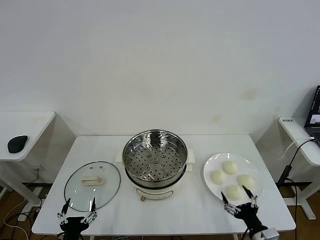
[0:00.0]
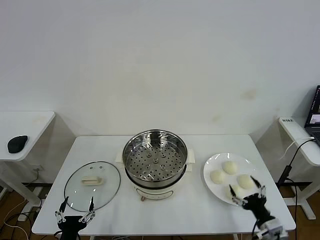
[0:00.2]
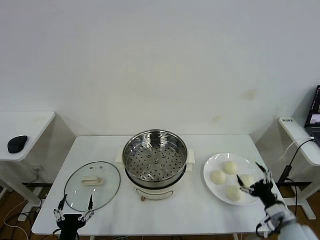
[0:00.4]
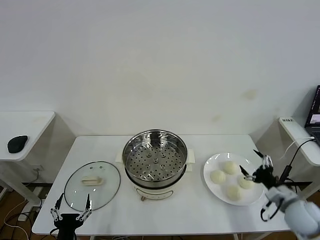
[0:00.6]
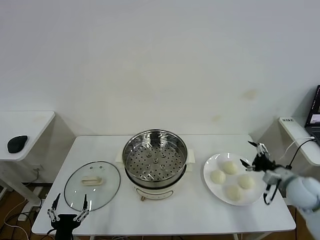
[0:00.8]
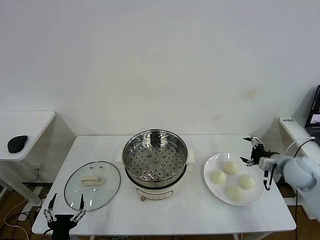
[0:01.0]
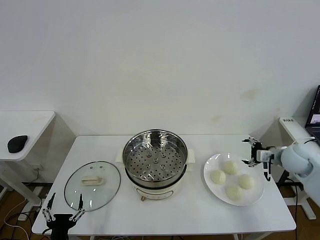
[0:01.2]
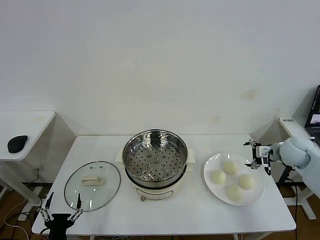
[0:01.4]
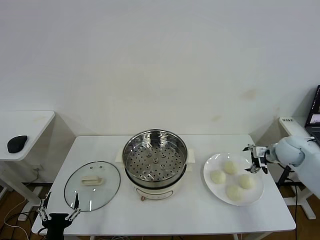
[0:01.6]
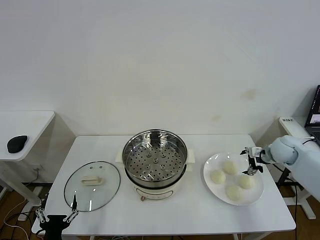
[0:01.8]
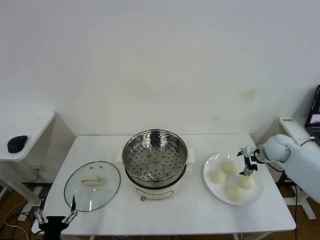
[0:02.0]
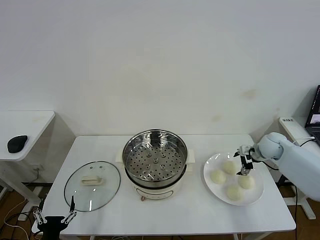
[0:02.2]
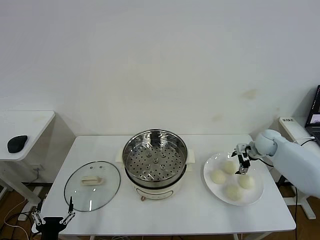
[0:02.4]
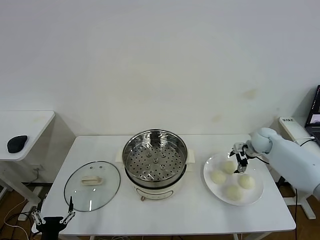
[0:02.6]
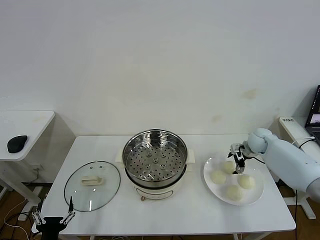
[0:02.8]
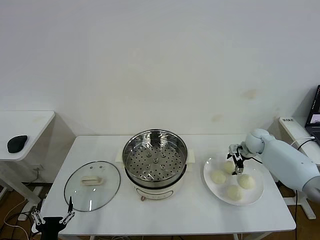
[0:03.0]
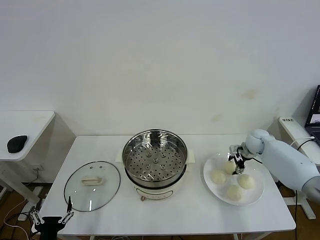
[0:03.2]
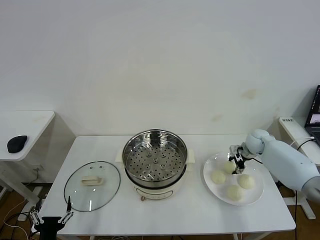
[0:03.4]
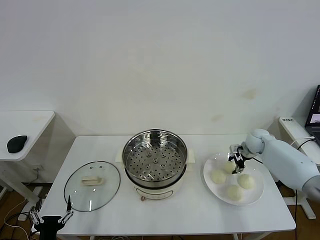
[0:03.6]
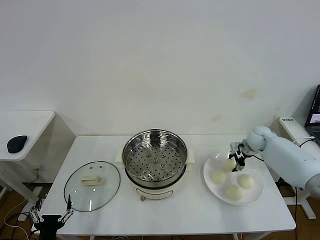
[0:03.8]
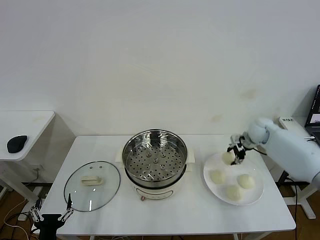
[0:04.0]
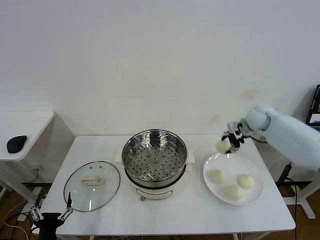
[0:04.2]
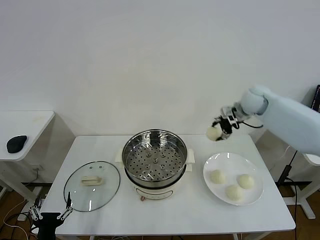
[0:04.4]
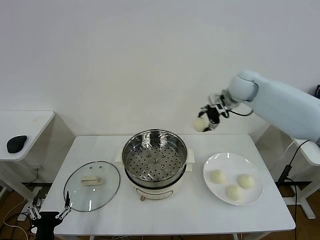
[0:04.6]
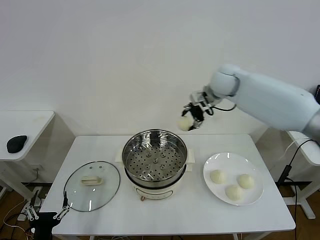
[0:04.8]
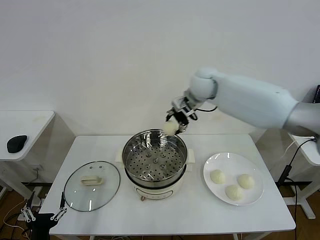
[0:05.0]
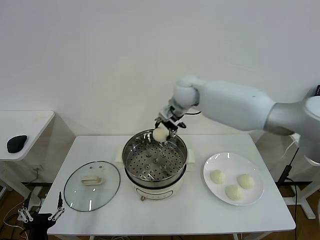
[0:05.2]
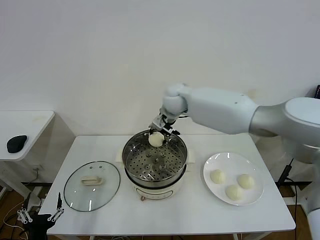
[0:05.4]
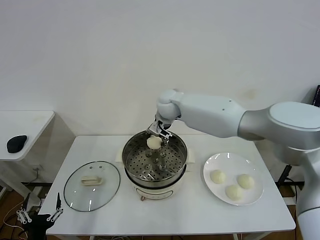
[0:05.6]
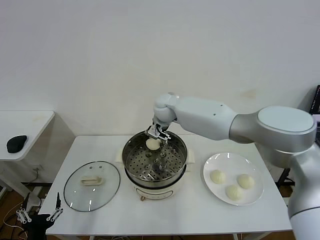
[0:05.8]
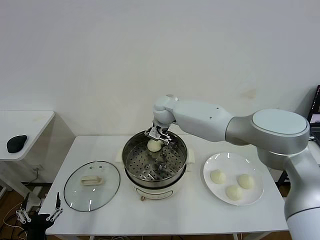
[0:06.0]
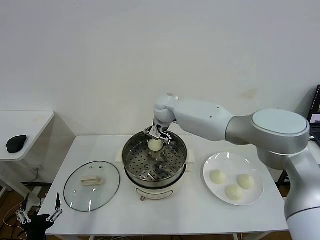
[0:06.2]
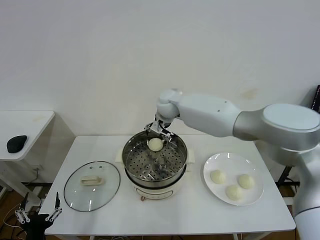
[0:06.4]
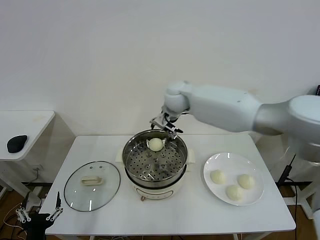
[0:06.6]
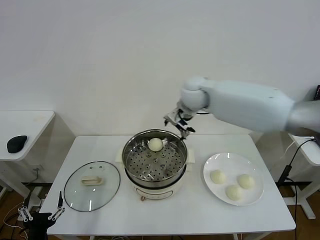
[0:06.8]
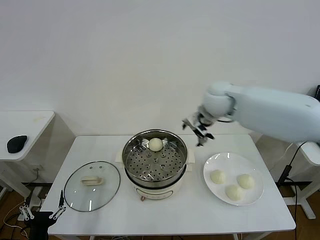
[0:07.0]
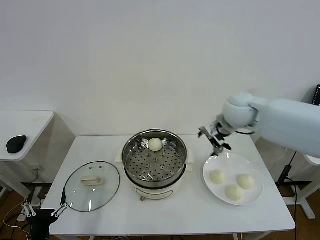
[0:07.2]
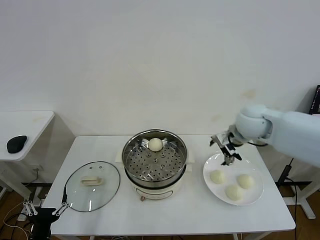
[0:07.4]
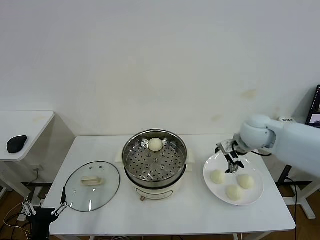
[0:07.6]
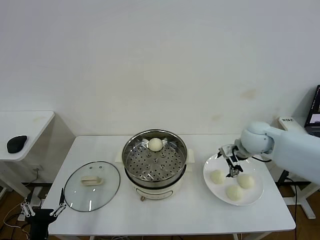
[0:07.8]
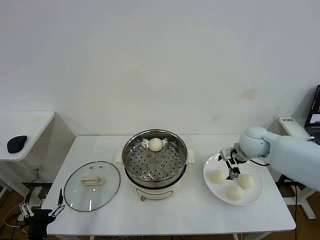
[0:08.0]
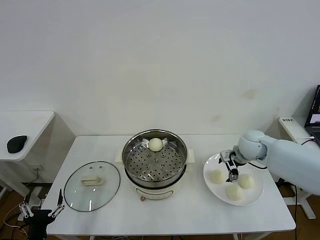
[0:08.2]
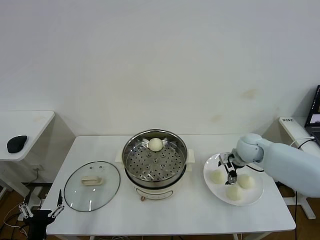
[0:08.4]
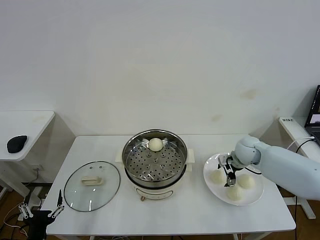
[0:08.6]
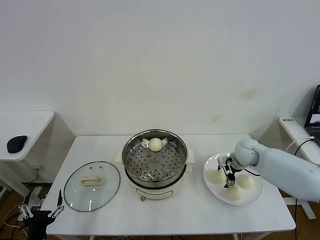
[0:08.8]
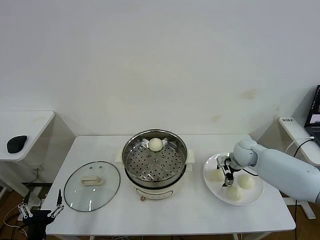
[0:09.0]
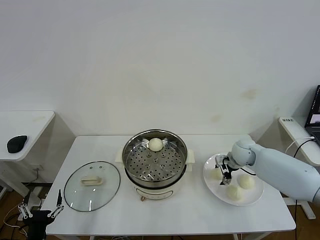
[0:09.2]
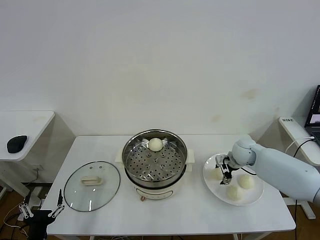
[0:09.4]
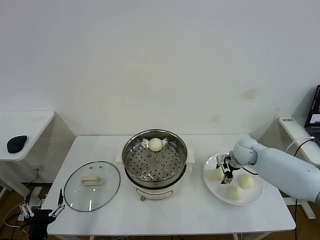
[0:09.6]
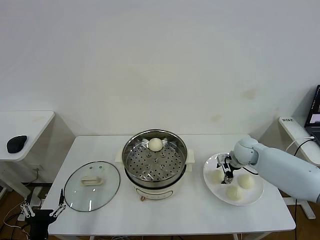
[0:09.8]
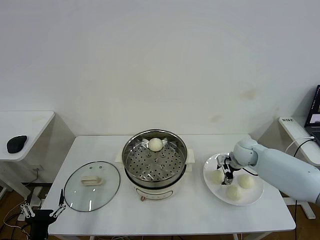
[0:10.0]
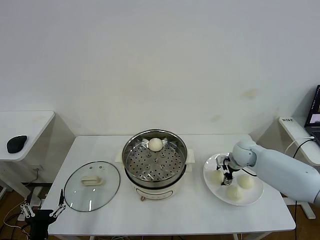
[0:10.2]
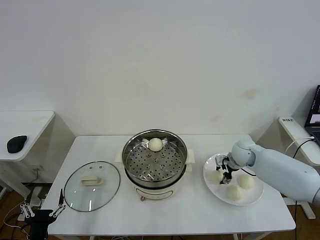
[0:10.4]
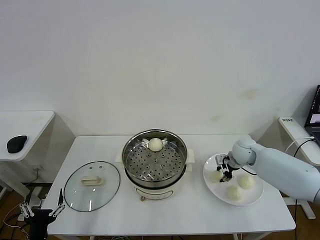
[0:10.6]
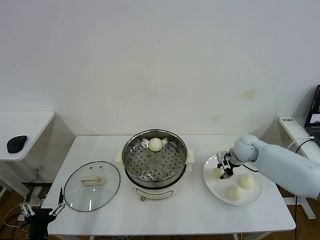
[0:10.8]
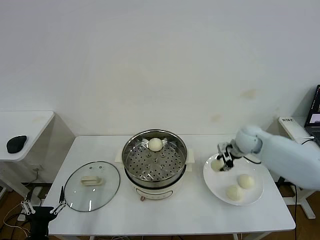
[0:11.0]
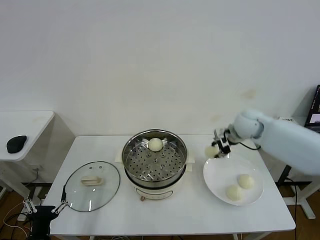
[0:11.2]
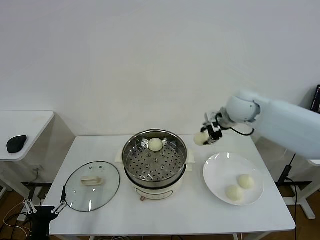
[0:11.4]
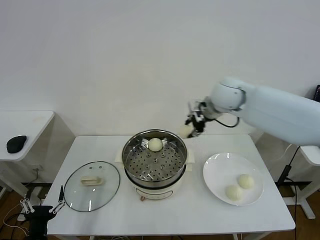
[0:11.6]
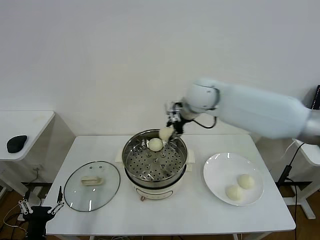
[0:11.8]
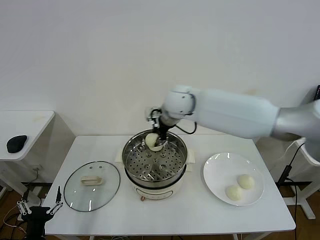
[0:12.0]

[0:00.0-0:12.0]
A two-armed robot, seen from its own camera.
Step, 0:00.0 to 0:03.4: Grasp the baozi in the plate with right gripper.
Step, 0:03.8 to 0:06.0: Place the baozi on the steamer with right gripper.
Step, 0:06.2 to 0:10.6: Grasp the baozi in the plate with right gripper.
0:01.6 to 0:03.0: The right gripper travels forward and downward by roughly 10 cm.
0:03.0 to 0:04.4: The right gripper shifts some 25 cm upward and to the left, and closes.
0:04.4 to 0:06.0: The right gripper is displaced to the left by some 25 cm, and opens its fingers.
0:06.0 to 0:07.6: The right gripper goes about 30 cm to the right and backward.
0:07.6 to 0:09.0: The right gripper moves downward, about 15 cm.
0:09.0 to 0:10.4: The right gripper closes.
0:10.4 to 0:12.0: The right gripper heads to the left and upward, covering approximately 35 cm.

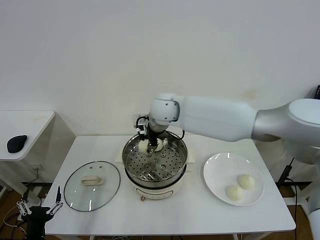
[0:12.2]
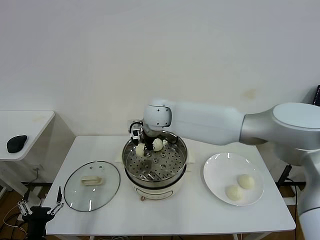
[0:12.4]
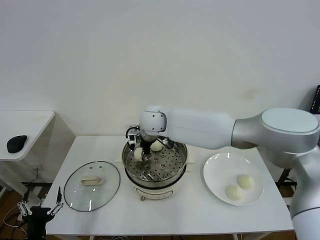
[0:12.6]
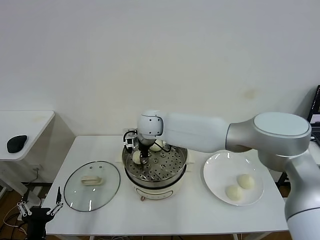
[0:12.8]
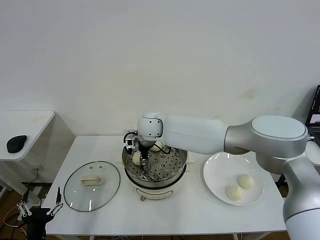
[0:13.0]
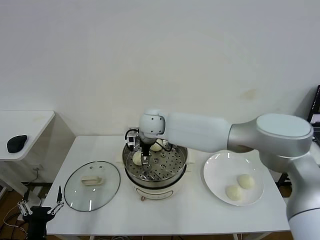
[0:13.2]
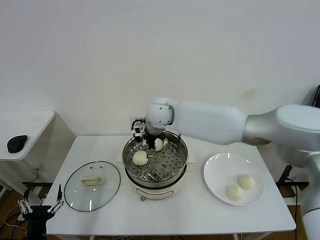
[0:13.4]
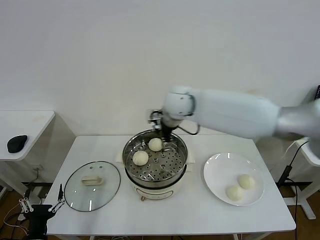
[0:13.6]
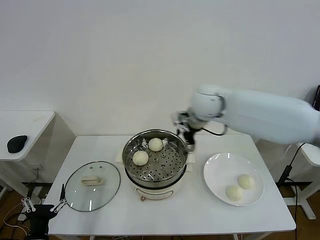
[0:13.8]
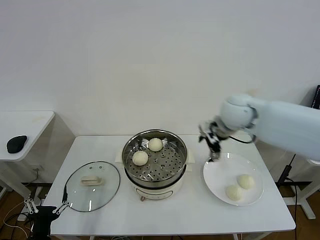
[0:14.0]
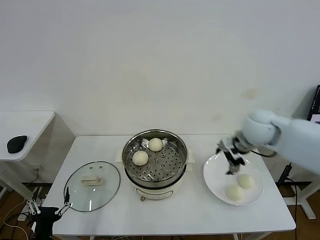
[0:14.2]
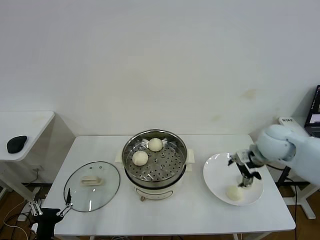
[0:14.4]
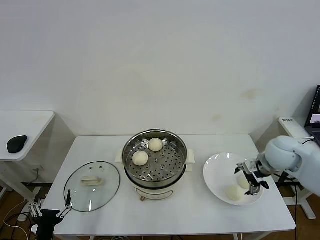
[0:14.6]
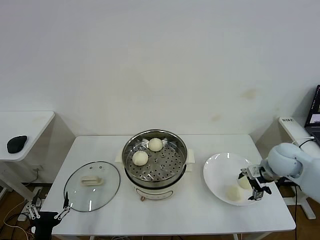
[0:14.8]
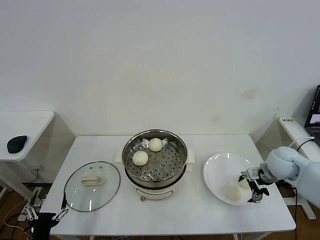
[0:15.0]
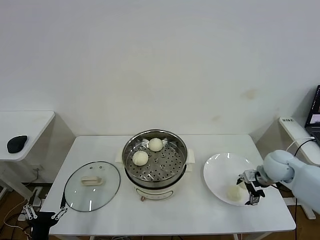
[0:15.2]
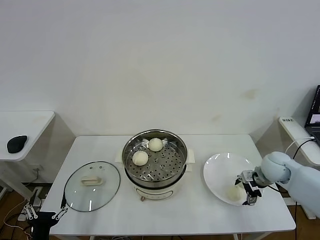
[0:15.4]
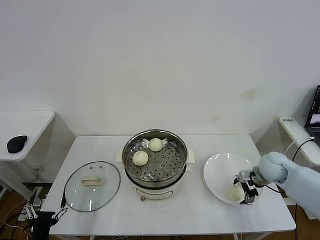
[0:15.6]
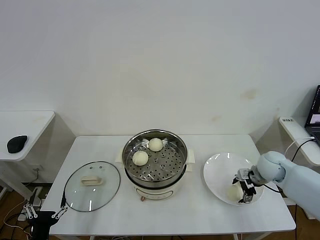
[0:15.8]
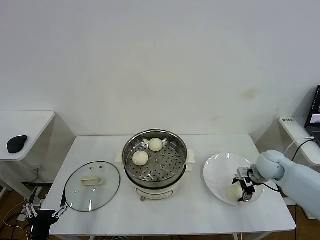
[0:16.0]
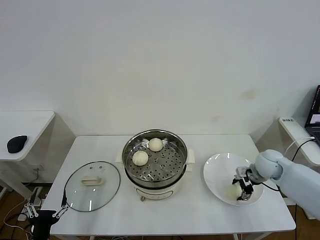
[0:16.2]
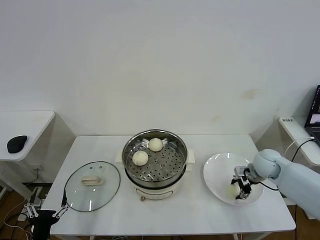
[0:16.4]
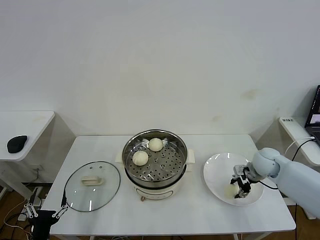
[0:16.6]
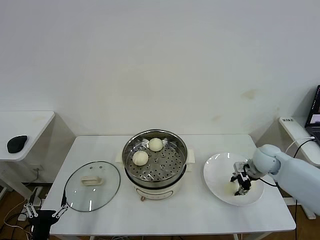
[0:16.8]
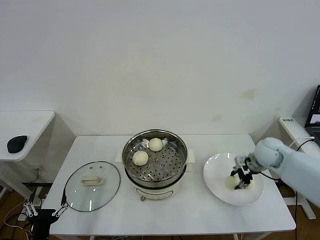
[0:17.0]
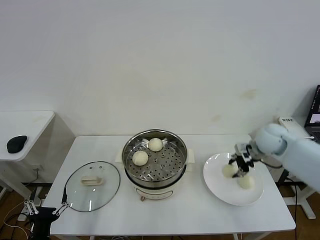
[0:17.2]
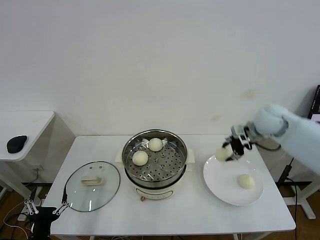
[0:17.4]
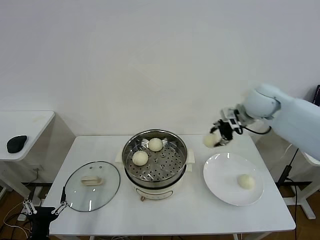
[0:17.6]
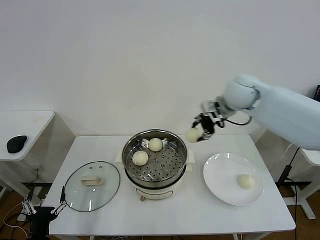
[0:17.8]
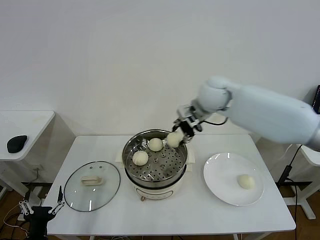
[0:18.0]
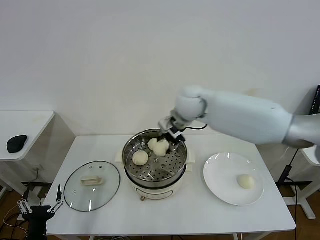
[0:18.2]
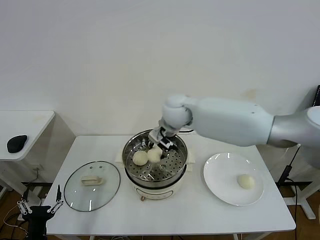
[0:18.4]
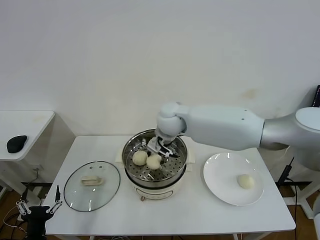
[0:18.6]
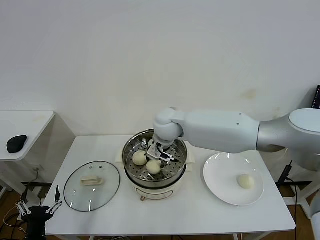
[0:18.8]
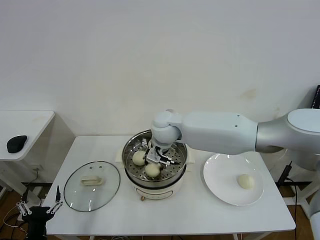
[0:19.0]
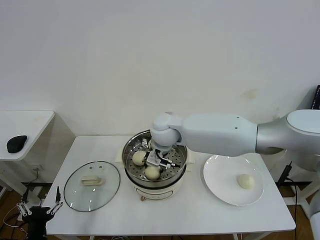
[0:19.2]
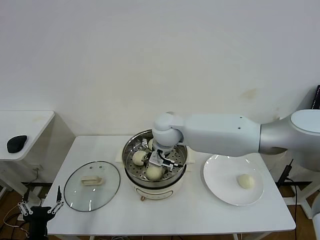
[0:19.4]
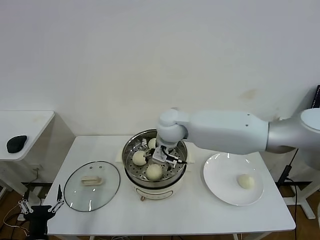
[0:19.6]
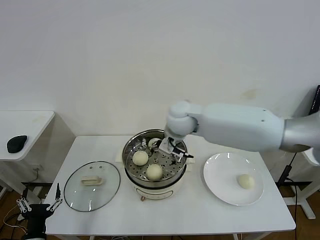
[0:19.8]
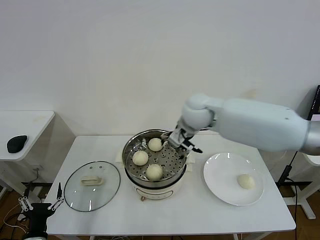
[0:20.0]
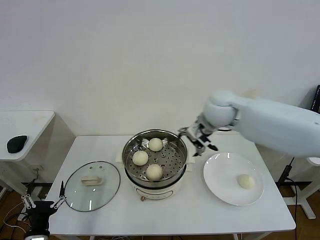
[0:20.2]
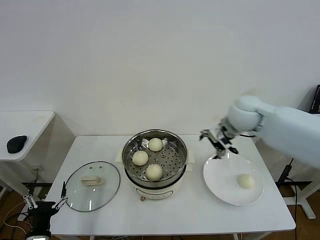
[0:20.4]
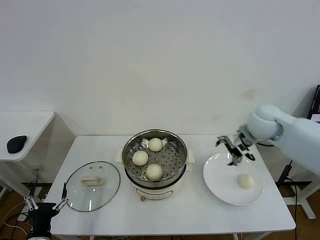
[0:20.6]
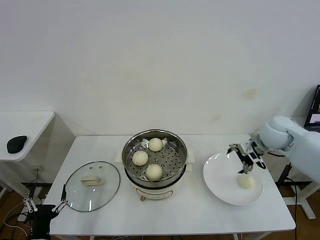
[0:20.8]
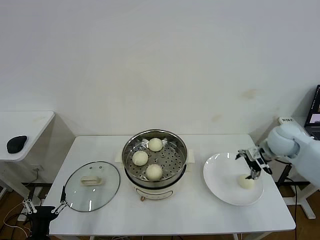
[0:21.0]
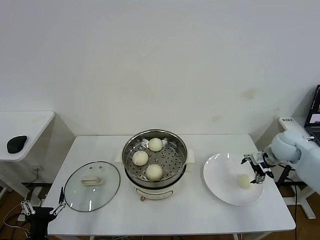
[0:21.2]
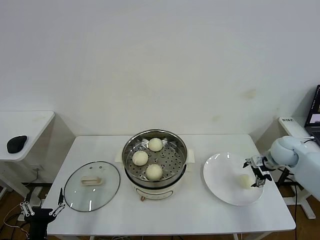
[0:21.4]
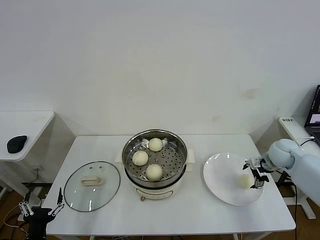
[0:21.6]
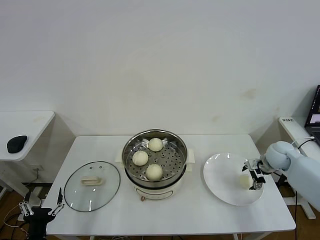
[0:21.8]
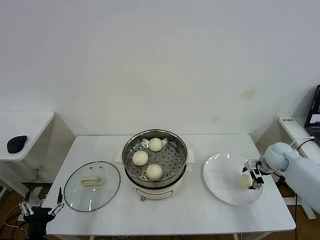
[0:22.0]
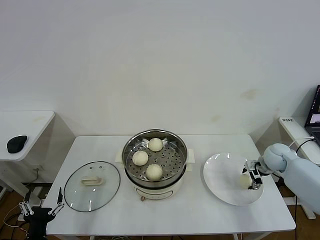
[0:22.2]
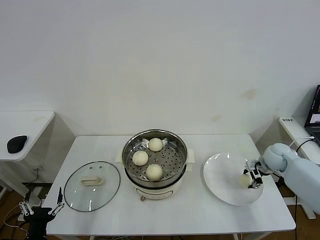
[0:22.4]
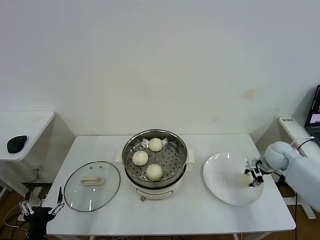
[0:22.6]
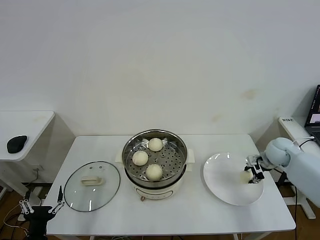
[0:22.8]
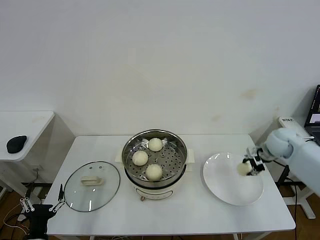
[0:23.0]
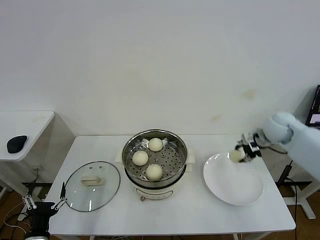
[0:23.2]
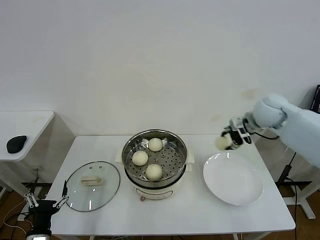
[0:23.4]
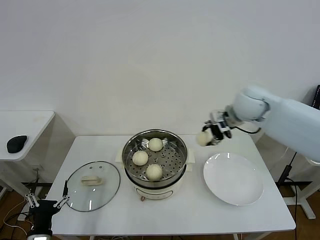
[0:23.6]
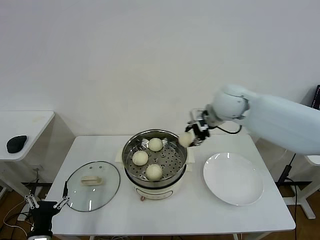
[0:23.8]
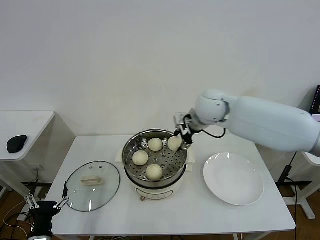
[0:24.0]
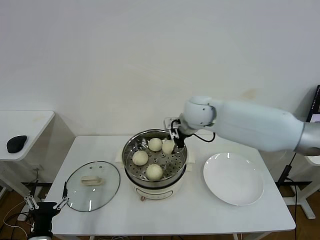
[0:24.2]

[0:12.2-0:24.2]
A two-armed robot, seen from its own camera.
Step, 0:13.4 to 0:16.6: Grasp the baozi in the plate with right gripper.
Step, 0:16.8 to 0:19.4: Place the baozi on the steamer with right gripper.
Step, 0:19.6 to 0:22.6: Grasp the baozi in the plate with right gripper.
0:12.2 to 0:13.8: The right gripper moves to the right, some 15 cm, and opens its fingers.
0:13.8 to 0:15.2: The right gripper is displaced to the right and downward by approximately 30 cm.
0:15.2 to 0:16.6: The right gripper closes its fingers.
0:16.6 to 0:18.2: The right gripper is displaced to the left and upward by about 35 cm.
0:18.2 to 0:19.8: The right gripper opens up.
0:19.8 to 0:21.2: The right gripper moves to the right, approximately 35 cm.
0:21.2 to 0:22.6: The right gripper is displaced downward by some 5 cm, and closes its fingers.
0:22.6 to 0:24.2: The right gripper travels to the left and upward by about 35 cm.
